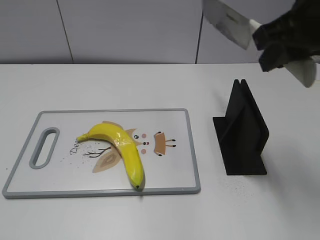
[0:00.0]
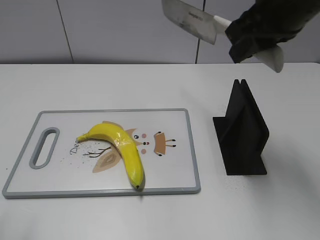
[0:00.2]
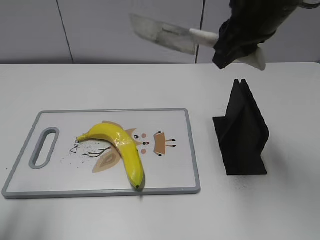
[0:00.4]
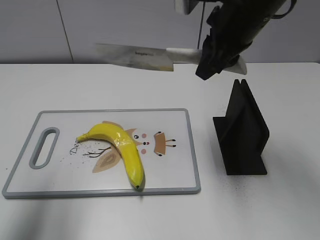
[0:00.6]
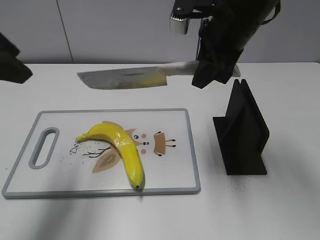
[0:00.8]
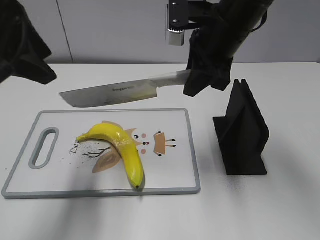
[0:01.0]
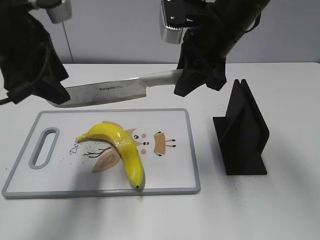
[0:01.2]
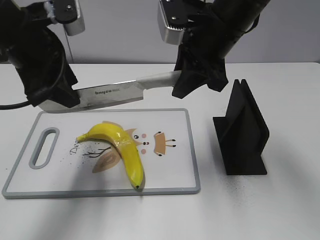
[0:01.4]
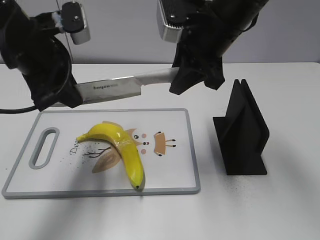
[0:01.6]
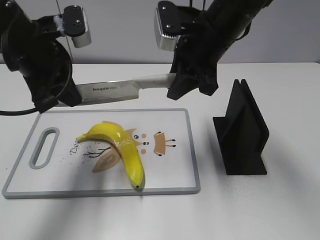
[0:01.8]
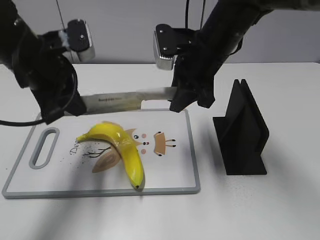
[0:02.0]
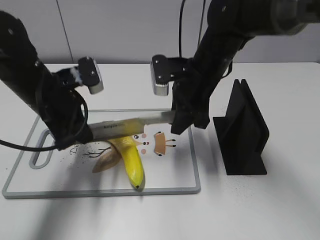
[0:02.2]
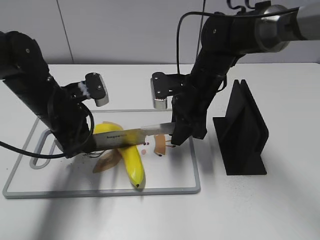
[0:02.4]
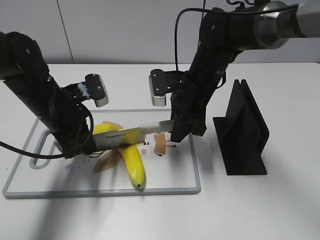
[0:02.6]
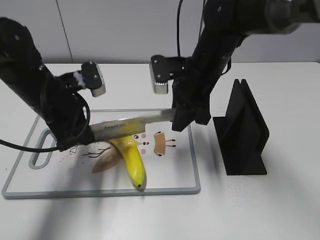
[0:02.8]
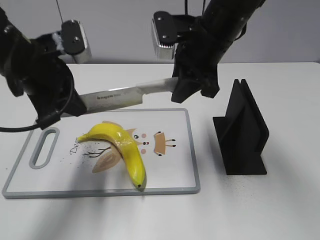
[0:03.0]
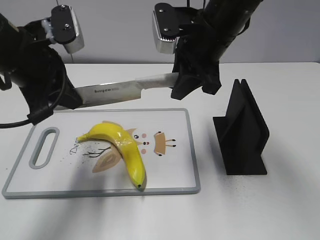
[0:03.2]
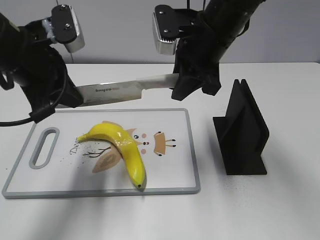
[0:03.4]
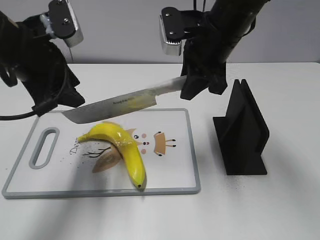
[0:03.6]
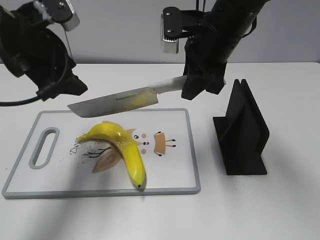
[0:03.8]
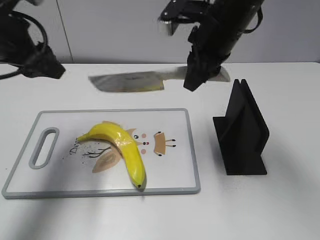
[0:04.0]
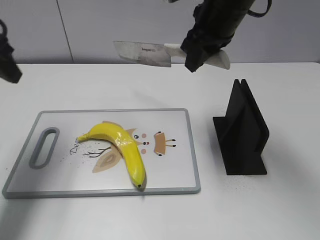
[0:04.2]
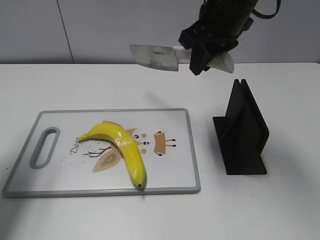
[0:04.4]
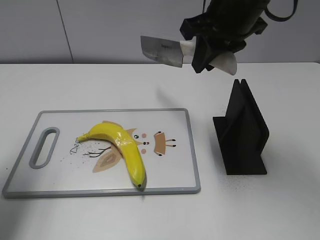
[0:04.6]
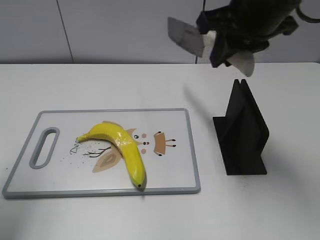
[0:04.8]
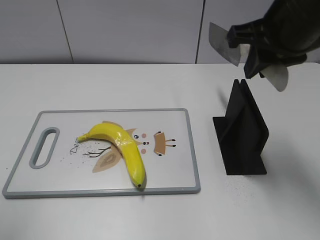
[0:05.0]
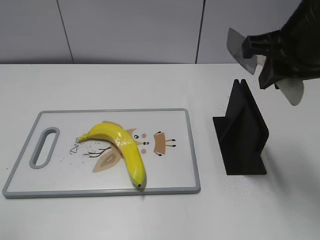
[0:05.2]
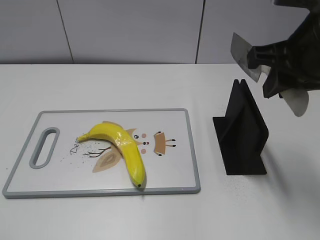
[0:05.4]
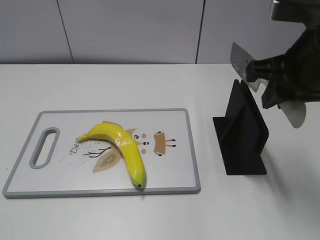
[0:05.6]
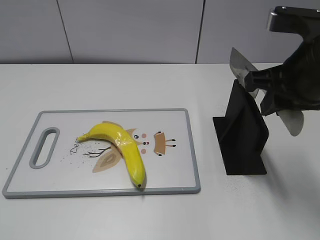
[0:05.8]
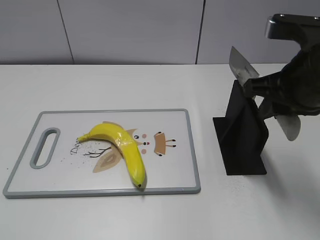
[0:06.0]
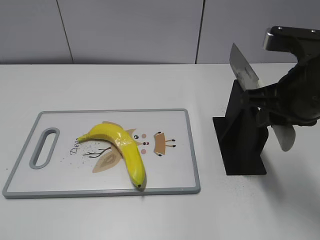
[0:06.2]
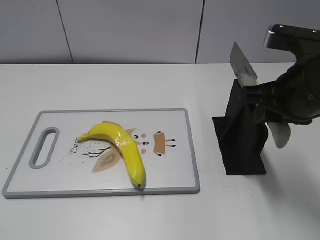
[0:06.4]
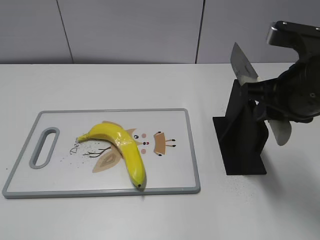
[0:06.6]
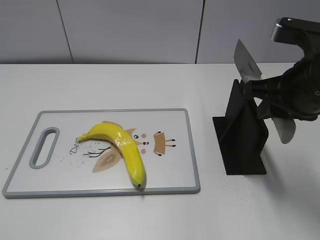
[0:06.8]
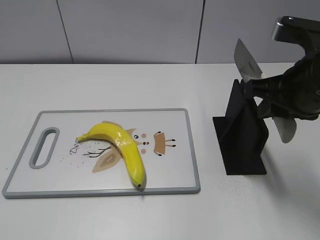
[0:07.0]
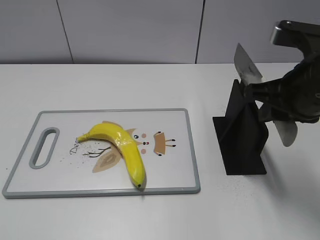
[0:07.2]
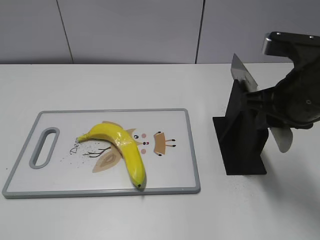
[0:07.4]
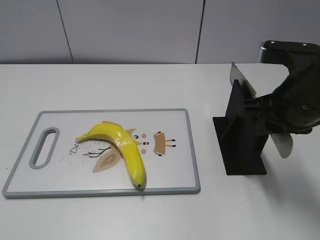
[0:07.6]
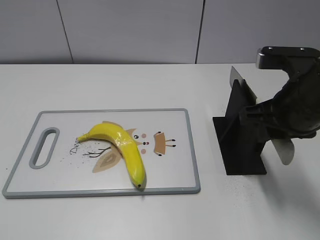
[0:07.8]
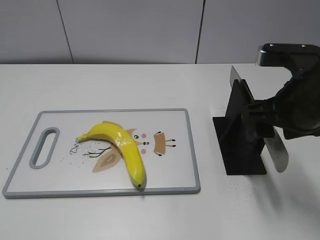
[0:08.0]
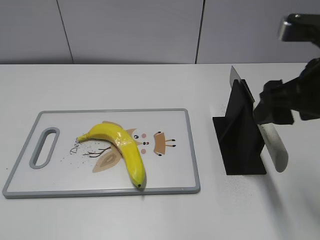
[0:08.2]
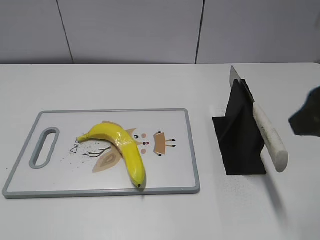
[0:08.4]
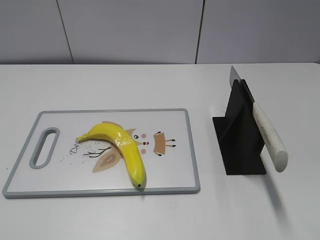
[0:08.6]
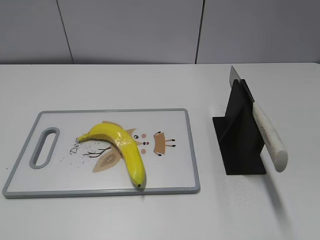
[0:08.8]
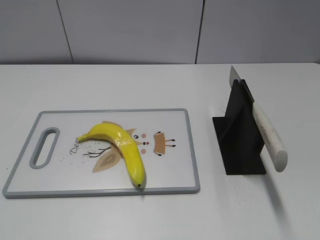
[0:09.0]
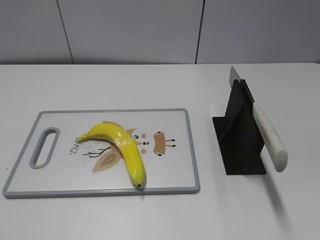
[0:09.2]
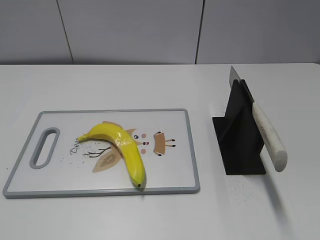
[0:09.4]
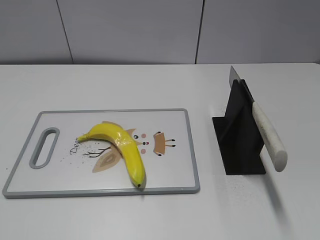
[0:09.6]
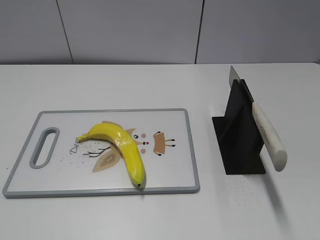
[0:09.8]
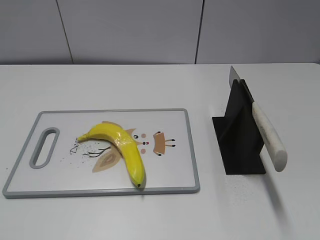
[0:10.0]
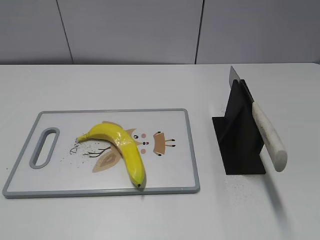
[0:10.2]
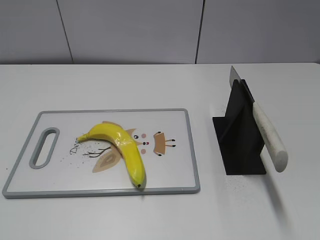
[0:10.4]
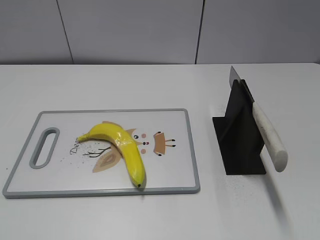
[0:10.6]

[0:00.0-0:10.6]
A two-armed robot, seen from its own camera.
Task of the whole recording: cut plastic banana.
Step, 0:00.0 to 0:03.4: Lift the knife with your right hand.
Step, 0:03.8 to 0:04.4: Cut the banana with your right hand.
Step, 0:04.6 to 0:05.8: Lift the knife with your right hand.
Step, 0:06.0 to 0:10.6: Place the knife on the storage rack with your right hand.
0:00.0 to 0:01.6: The left gripper moves forward and to the right, about 30 cm, and closes its fingers. The right gripper moves forward, to the left and downward, roughly 15 cm.
0:01.6 to 0:03.0: The right gripper goes downward and returns, about 15 cm each way, while the left gripper moves roughly 15 cm downward and comes back, and closes up.
0:03.0 to 0:04.6: The right gripper shifts approximately 5 cm upward, while the left gripper goes about 15 cm to the left and upward, and opens its fingers.
0:04.6 to 0:06.0: The left gripper moves backward, roughly 25 cm, while the right gripper shifts roughly 15 cm backward, to the right and downward.
0:06.0 to 0:07.6: The grippers stay close to where they were, moving slightly.
0:07.6 to 0:09.0: The right gripper goes some 20 cm backward and to the right, and opens its fingers.
